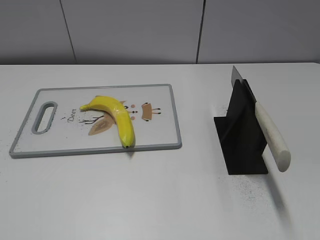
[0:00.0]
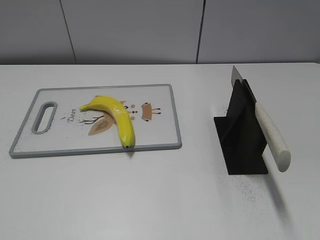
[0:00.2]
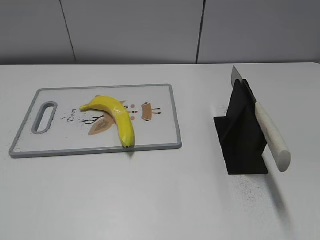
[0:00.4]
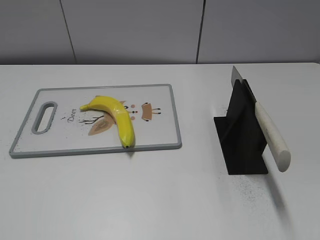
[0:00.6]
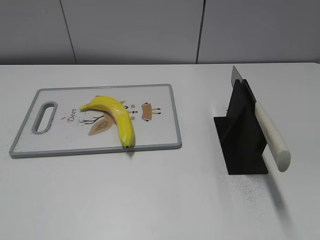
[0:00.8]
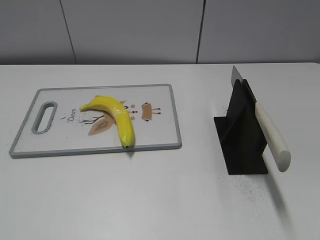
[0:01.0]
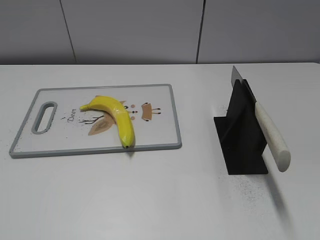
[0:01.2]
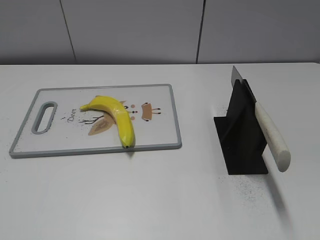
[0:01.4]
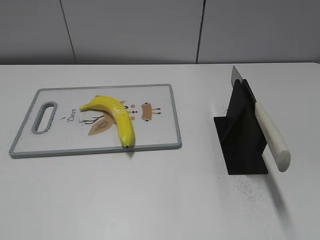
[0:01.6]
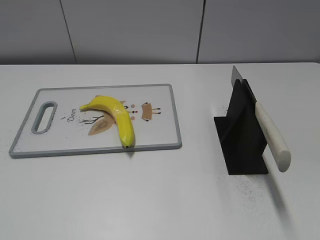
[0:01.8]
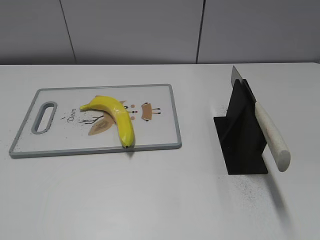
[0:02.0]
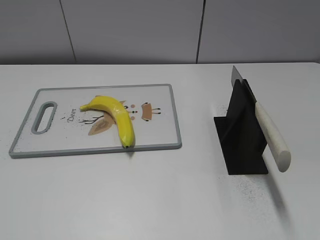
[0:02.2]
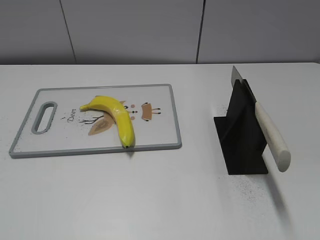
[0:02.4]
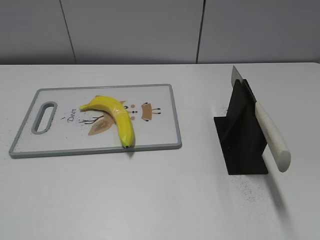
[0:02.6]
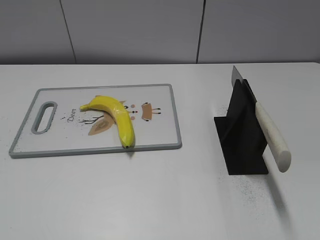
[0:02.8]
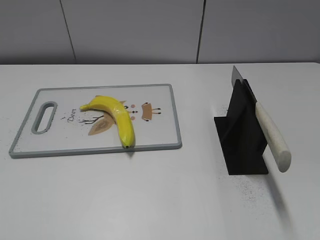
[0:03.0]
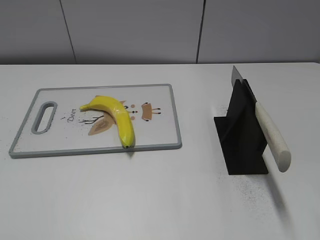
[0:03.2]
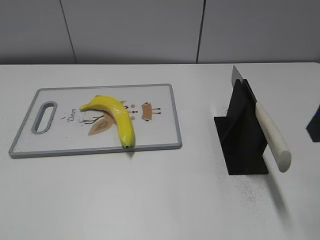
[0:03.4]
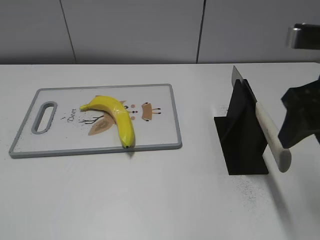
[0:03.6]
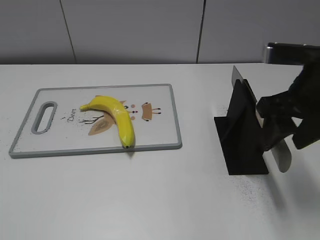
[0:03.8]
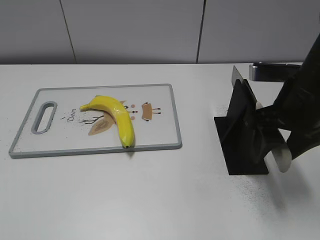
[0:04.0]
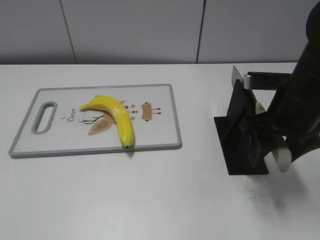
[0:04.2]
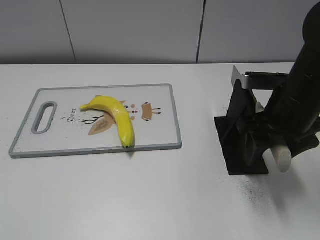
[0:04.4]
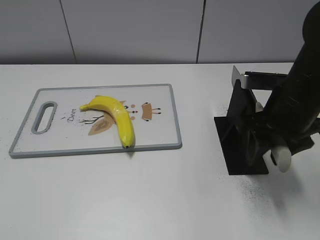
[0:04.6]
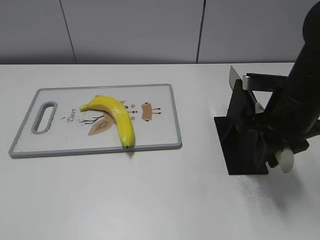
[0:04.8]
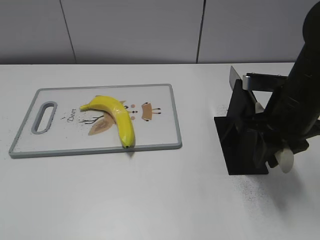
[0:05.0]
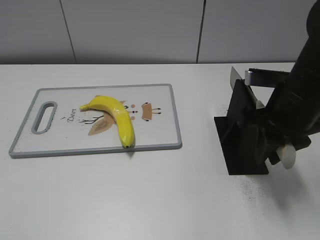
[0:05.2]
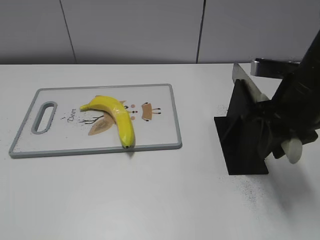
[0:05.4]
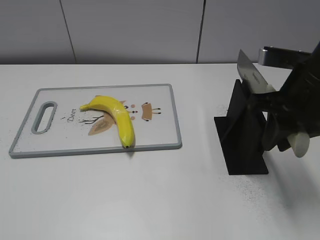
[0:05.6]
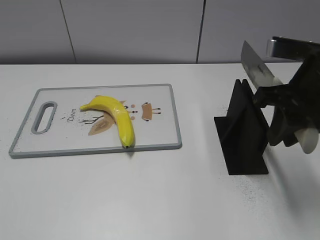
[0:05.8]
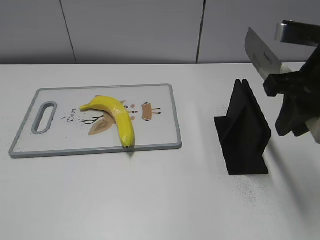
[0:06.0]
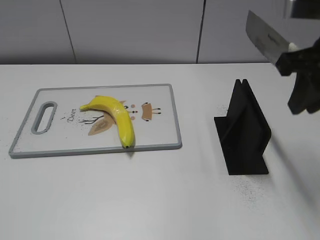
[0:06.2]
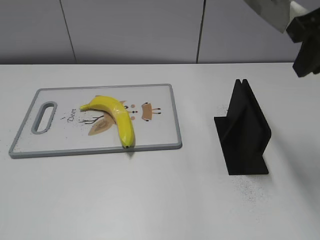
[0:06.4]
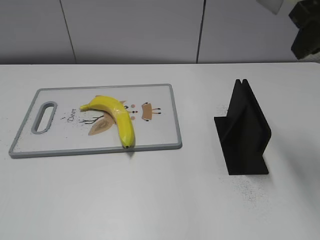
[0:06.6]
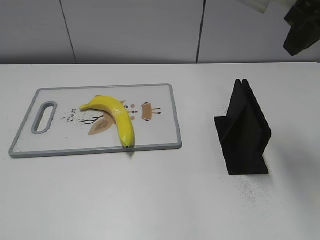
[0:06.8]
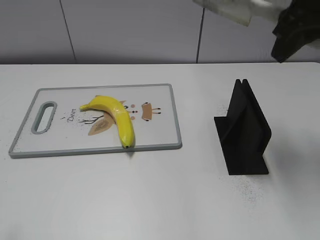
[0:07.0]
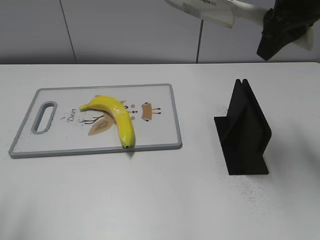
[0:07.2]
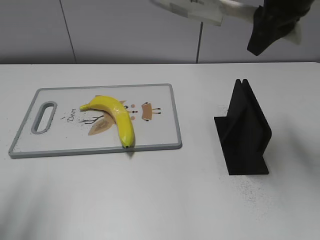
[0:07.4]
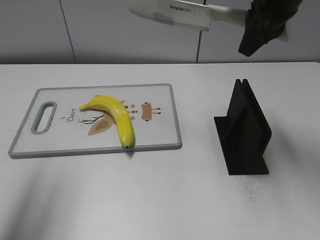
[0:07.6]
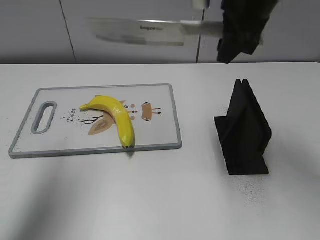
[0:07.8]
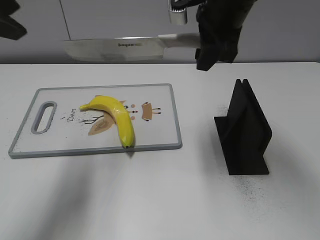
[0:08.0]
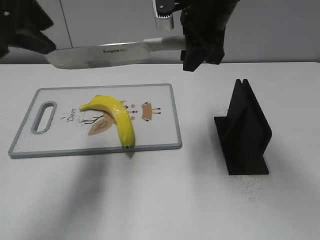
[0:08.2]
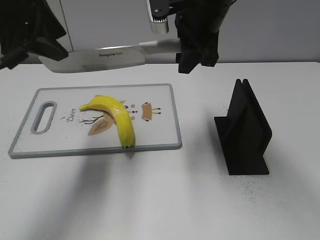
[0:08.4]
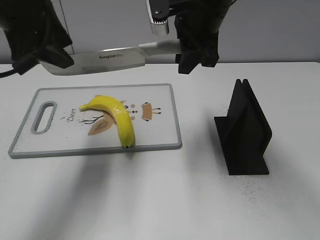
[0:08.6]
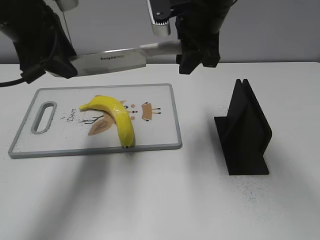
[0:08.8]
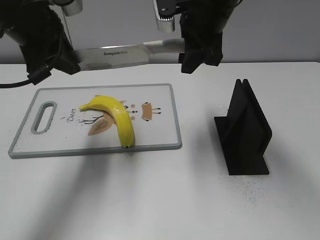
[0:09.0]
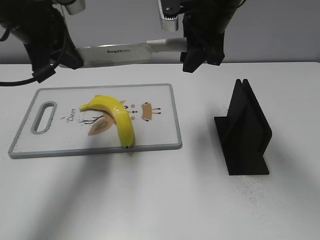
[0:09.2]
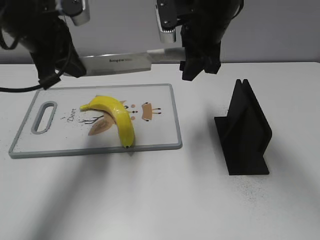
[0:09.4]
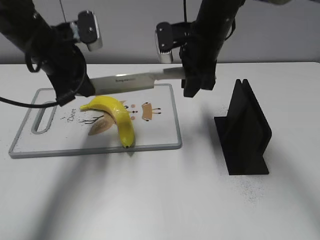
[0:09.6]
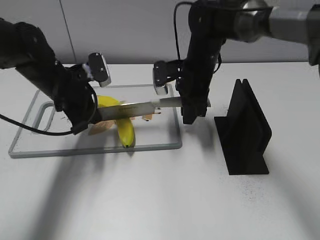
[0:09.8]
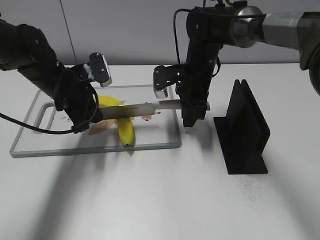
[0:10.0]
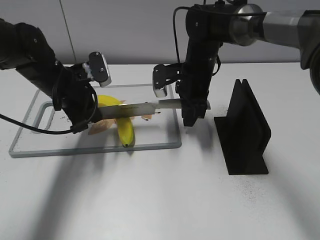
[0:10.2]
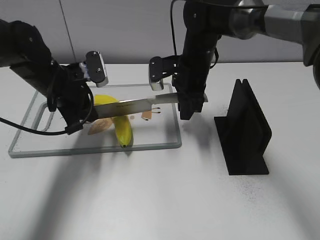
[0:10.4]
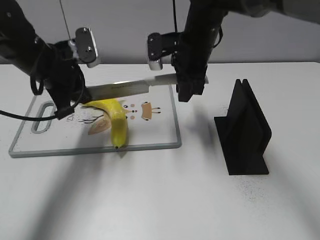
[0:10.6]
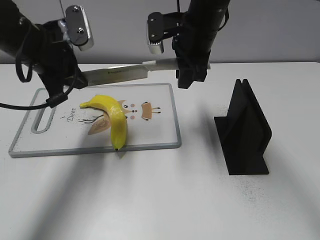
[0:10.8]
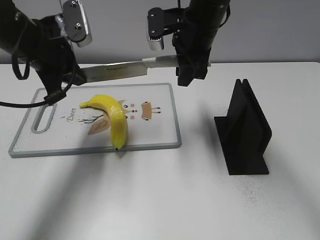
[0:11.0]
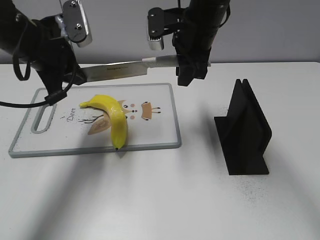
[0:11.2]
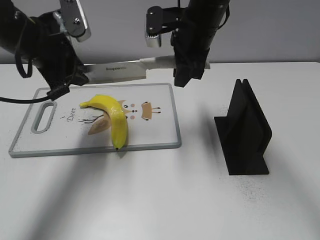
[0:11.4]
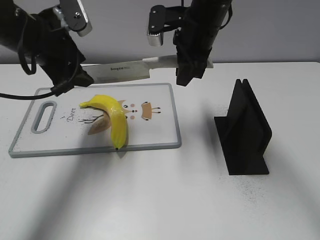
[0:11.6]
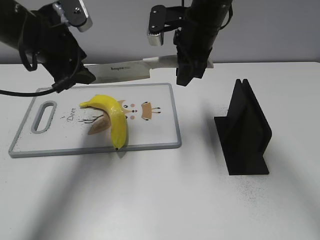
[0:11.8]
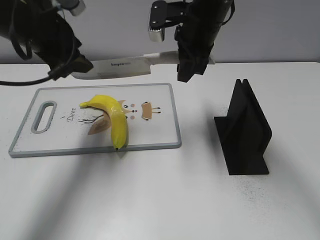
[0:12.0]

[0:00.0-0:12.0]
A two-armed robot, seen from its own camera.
Task of the whole recording: cut plastic banana.
Step, 0:00.0 to 0:06.0: Grab the knife handle with your right hand.
Step, 0:06.2 to 0:11.2: Lift the knife with your right hand.
0:03.0 to 0:04.4: The right gripper heads downward, forward and to the left, covering about 20 cm.
0:04.4 to 0:06.0: The right gripper moves upward, approximately 10 cm, and closes up.
0:06.0 to 0:07.6: The right gripper is displaced forward by approximately 10 cm. The left gripper shifts roughly 25 cm forward and upward.
0:07.6 to 0:09.0: The right gripper goes about 10 cm to the left. The left gripper heads forward, downward and to the right, covering roughly 20 cm, and closes up.
0:09.0 to 0:10.4: The grippers both shift downward by roughly 15 cm.
0:10.4 to 0:12.0: Both grippers move upward, roughly 10 cm. The left gripper opens its fingers.

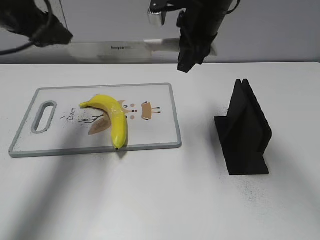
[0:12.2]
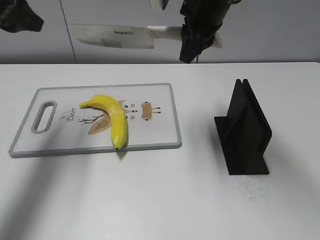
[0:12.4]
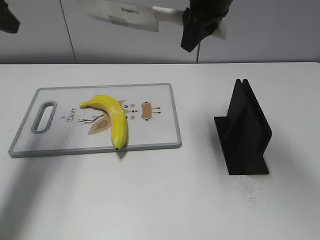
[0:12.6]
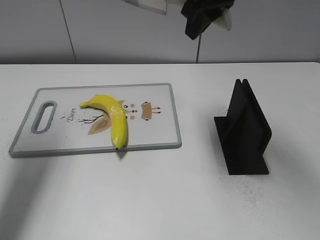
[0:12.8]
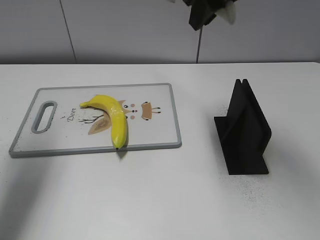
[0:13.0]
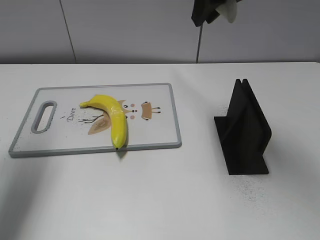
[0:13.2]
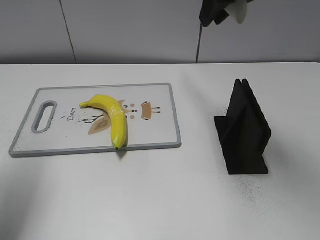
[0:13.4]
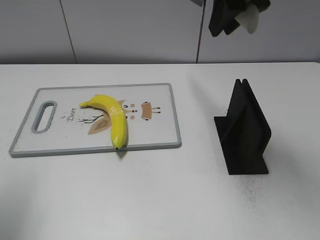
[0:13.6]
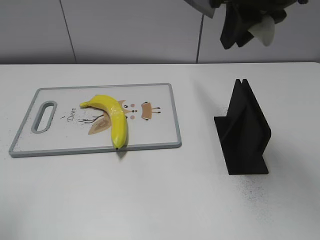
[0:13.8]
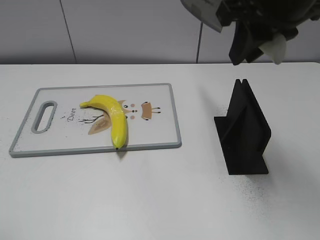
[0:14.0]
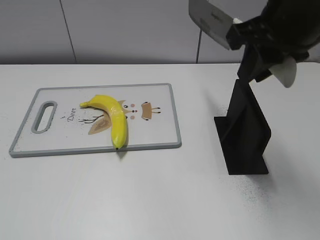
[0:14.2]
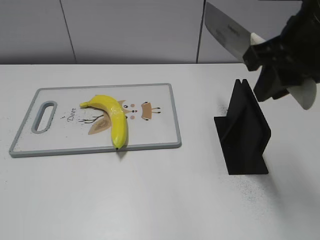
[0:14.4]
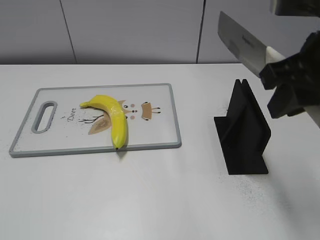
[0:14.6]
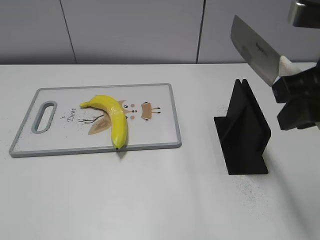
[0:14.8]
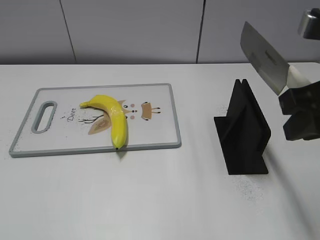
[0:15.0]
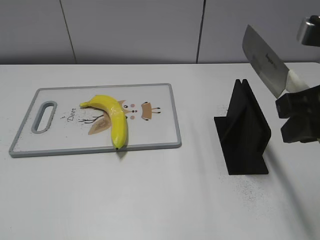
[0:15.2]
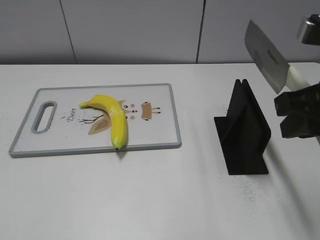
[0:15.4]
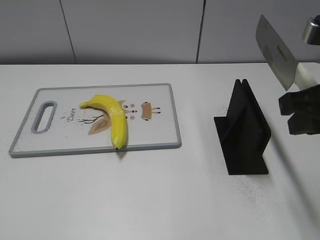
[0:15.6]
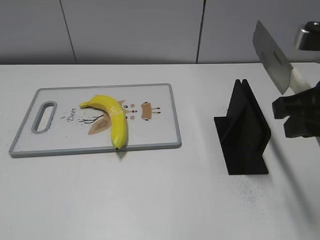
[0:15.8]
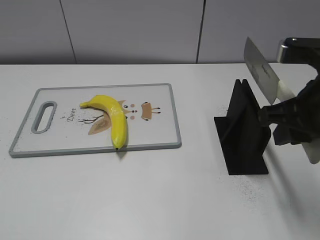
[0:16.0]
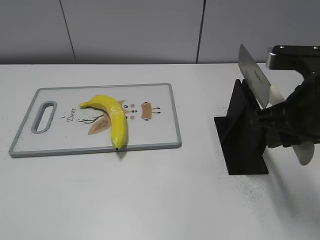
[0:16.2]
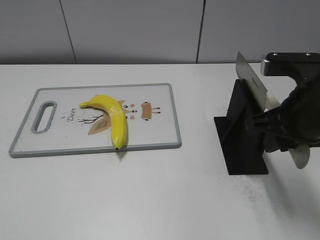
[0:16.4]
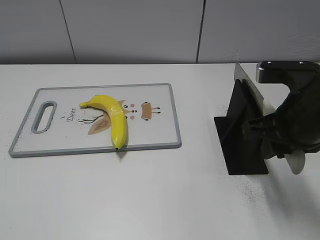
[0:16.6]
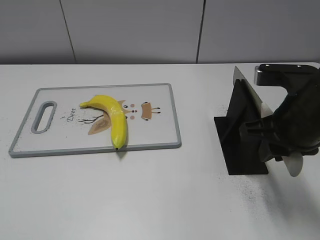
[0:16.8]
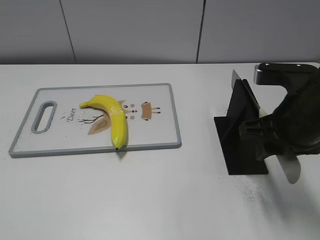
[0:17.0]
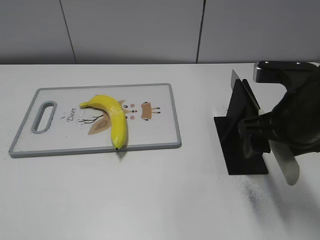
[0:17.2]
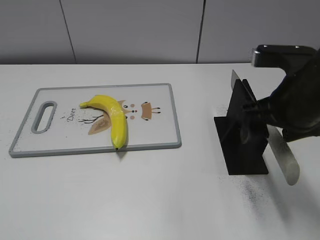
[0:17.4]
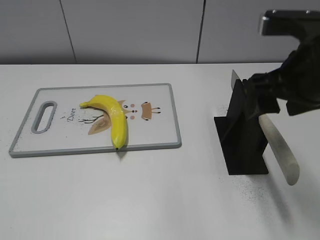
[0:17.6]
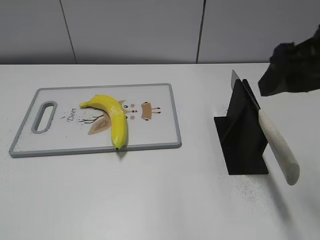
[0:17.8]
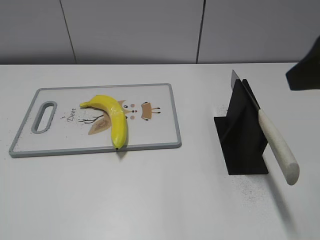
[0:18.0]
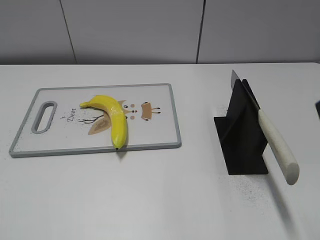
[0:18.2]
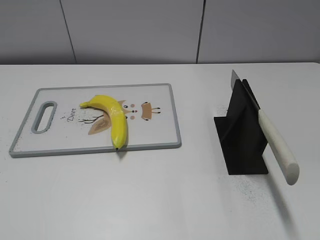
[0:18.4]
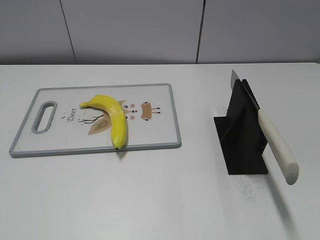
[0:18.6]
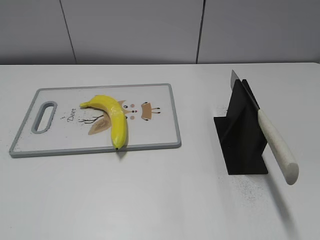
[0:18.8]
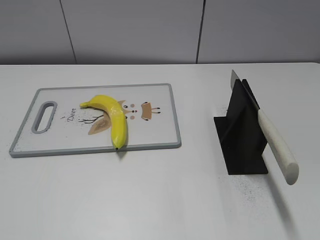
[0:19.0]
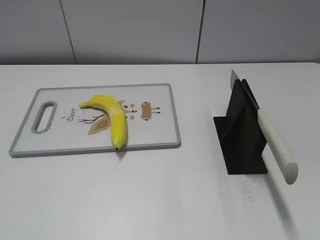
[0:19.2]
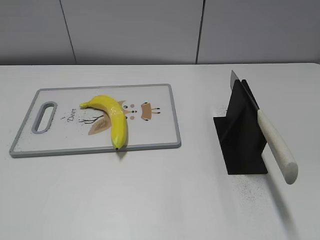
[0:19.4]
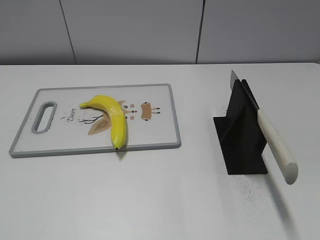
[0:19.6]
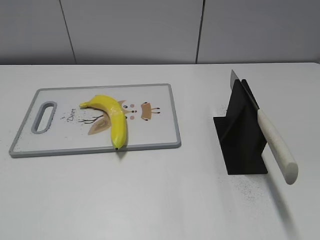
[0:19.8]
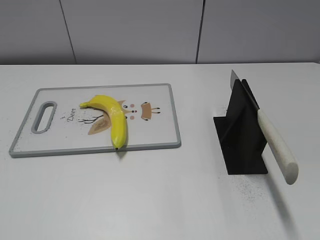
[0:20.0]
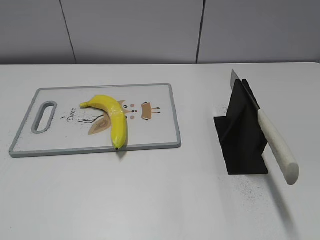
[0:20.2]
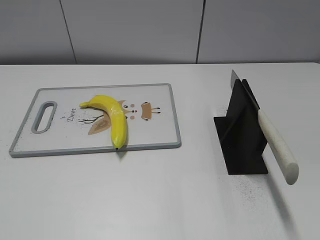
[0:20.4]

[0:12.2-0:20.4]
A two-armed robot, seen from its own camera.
Task of the whole recording: cut plastic banana.
Step, 0:13.0 to 0:14.2: Lift the knife with your right hand.
Step, 0:14.4 to 0:20.4: Place the knife on the storage rack with your right hand.
0:12.2 to 0:13.8: The right gripper goes roughly 15 cm backward, upward and to the right; the left gripper is displaced backward by roughly 20 cm.
0:13.8 to 0:15.4: The right gripper shifts about 15 cm backward, downward and to the right.
0:15.4 to 0:17.2: The right gripper moves downward, some 5 cm, and opens.
0:17.2 to 0:18.8: The right gripper shifts approximately 20 cm backward and to the right.
